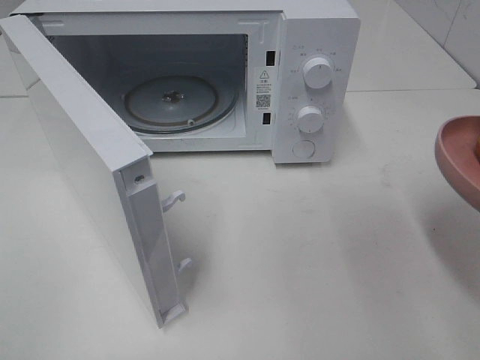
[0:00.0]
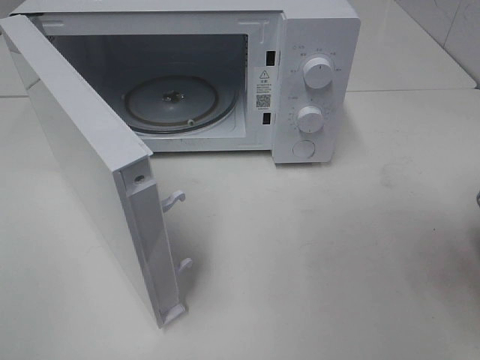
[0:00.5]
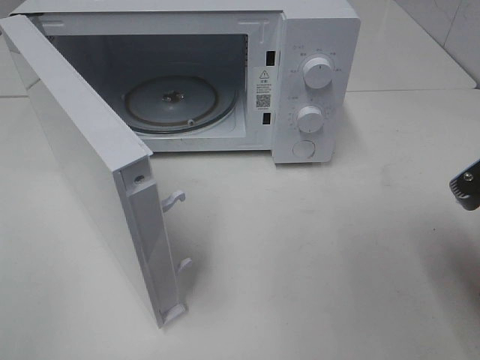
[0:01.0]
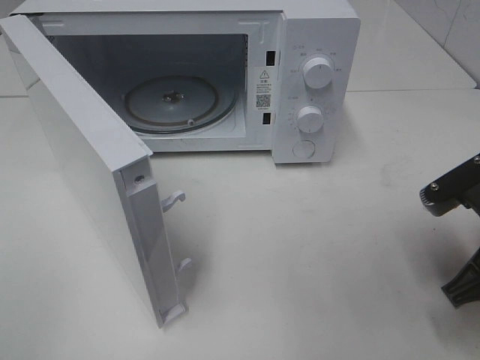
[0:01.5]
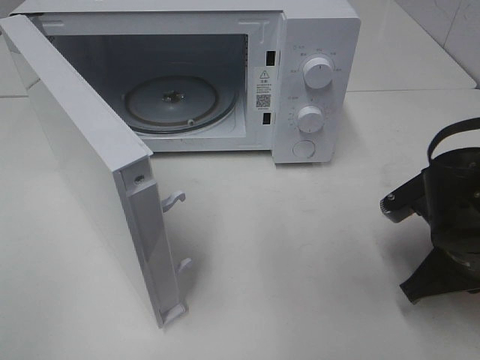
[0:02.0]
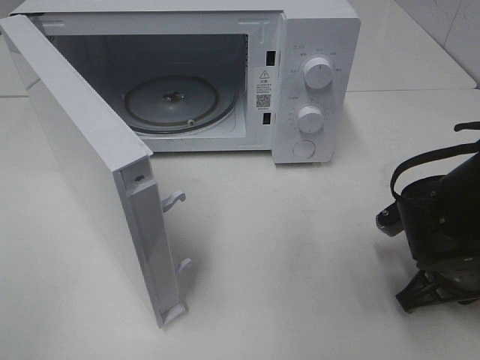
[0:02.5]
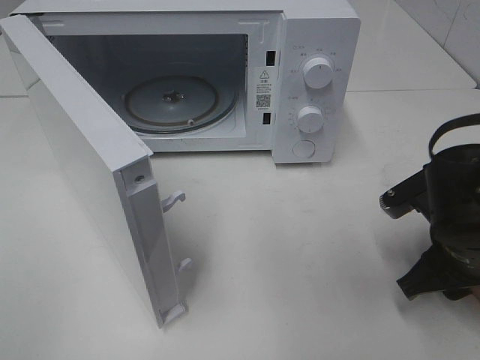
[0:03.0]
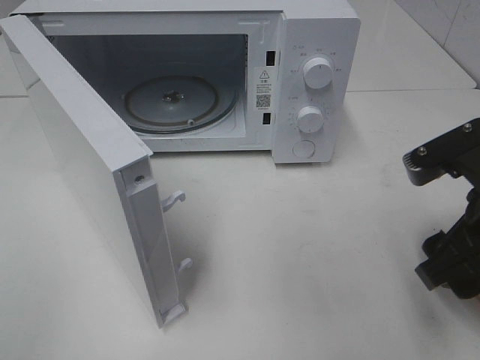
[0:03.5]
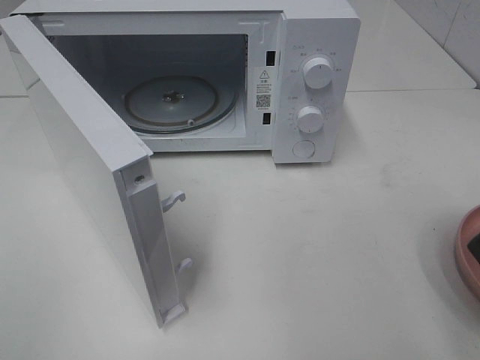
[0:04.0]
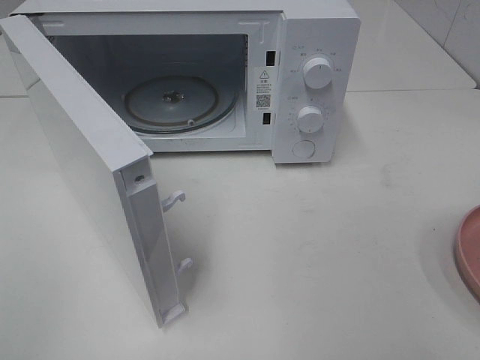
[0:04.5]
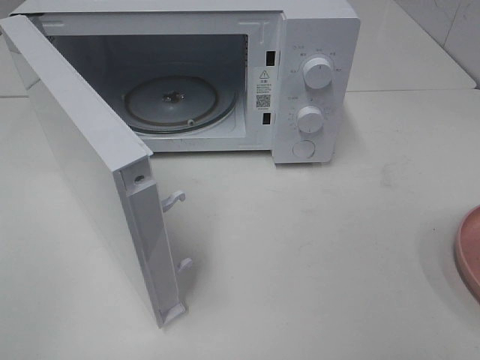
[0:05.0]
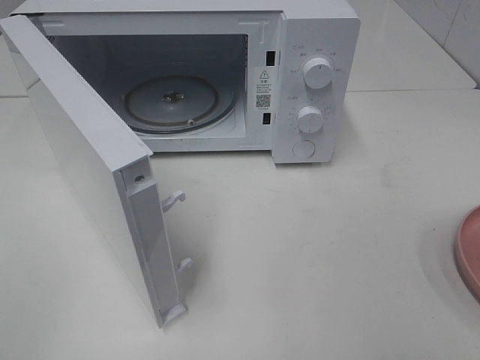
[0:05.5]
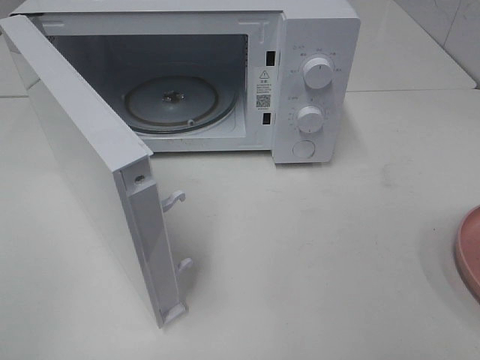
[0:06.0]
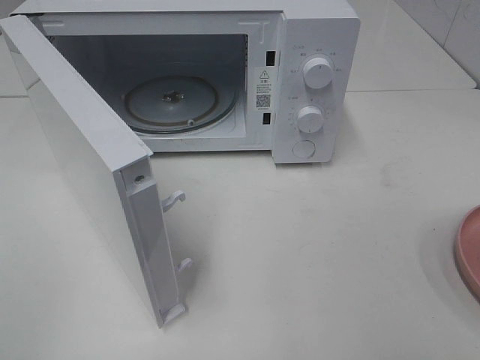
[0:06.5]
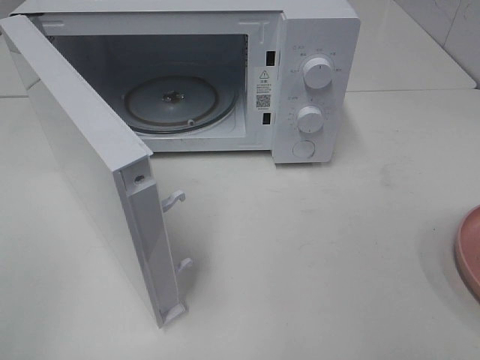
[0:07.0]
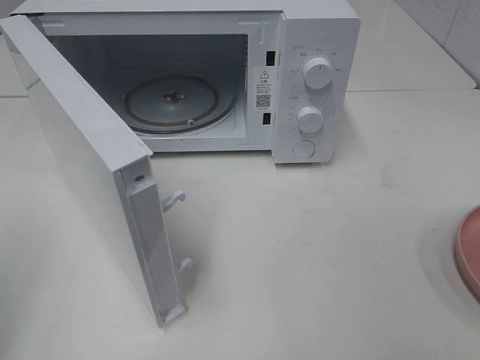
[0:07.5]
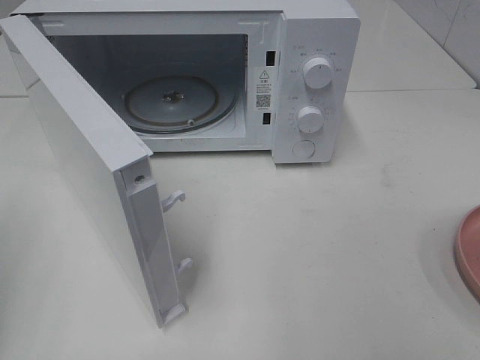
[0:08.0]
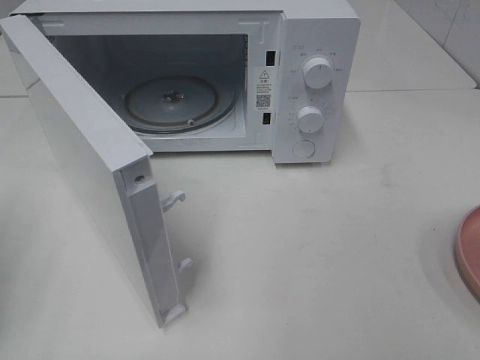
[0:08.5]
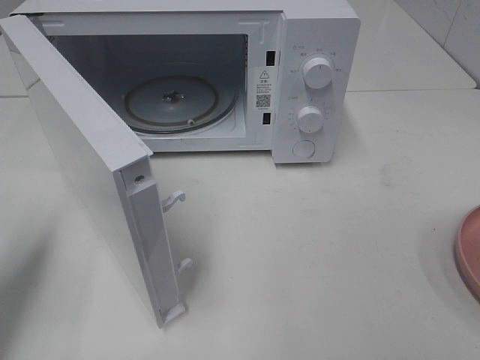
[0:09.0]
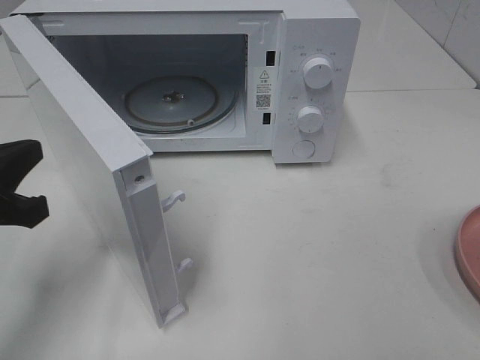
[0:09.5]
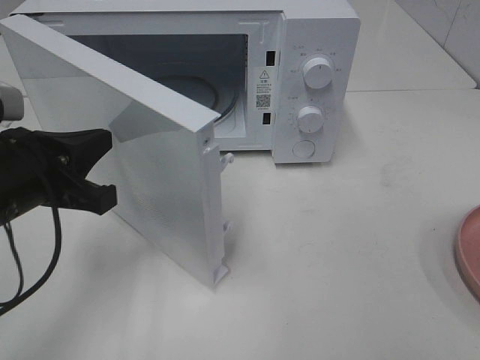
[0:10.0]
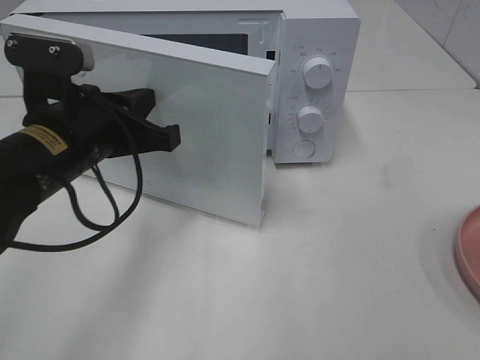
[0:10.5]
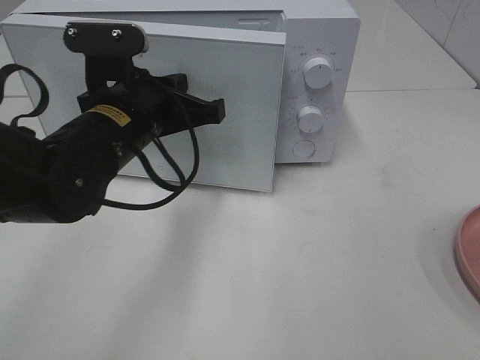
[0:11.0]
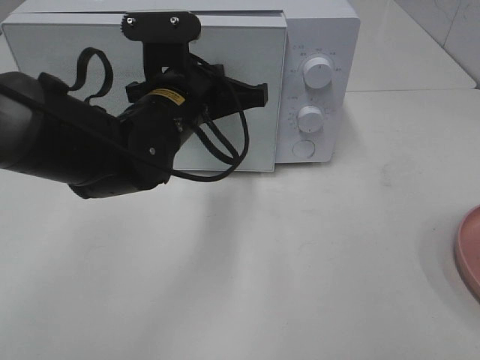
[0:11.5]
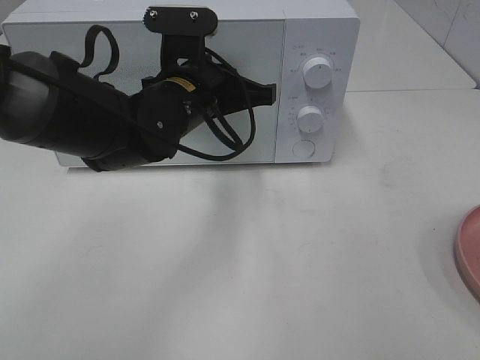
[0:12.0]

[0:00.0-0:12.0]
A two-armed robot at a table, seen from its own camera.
Task of the whole recording: Heat the burger.
Step, 0:00.0 to 0:02.5: Right hand: place the plate on the table.
0:00.0 to 0:02.0: The right gripper shifts approximately 15 cm downward and forward.
0:02.0 to 0:04.0: The right gripper goes approximately 20 cm upward and backward, and opens up.
0:04.0 to 0:06.0: The right gripper travels backward and to the right by approximately 15 cm.
0:08.0 to 0:10.0: The left gripper shifts roughly 20 cm to the right, forward and downward.
0:10.0 to 0:12.0: The left gripper moves to the right and forward, roughly 20 cm.

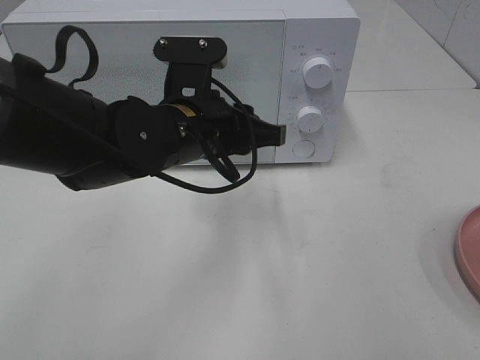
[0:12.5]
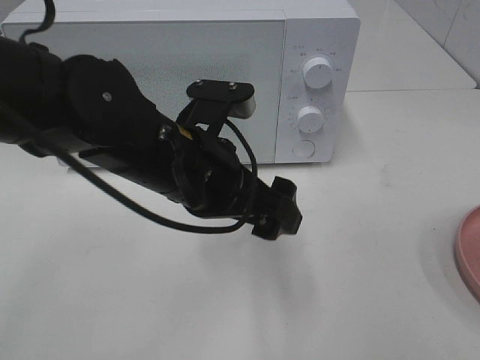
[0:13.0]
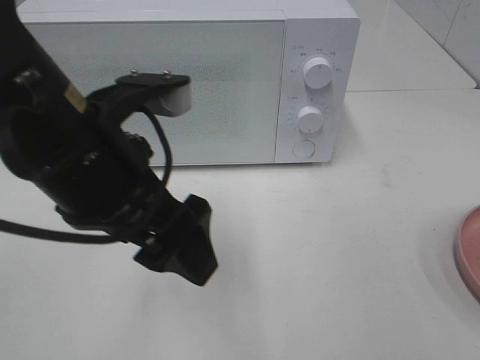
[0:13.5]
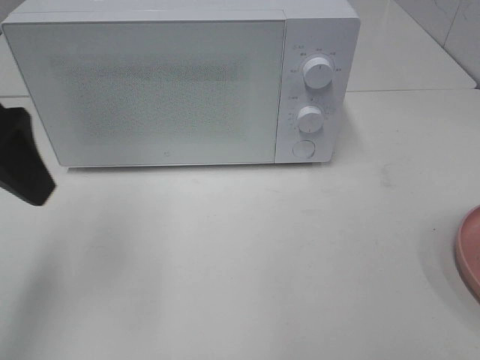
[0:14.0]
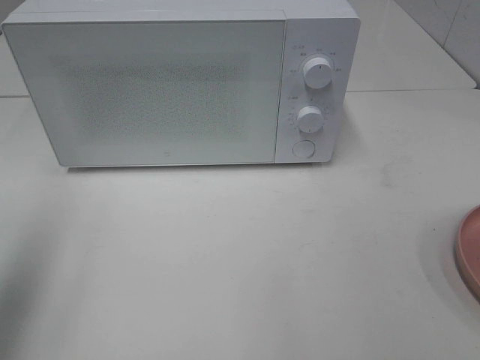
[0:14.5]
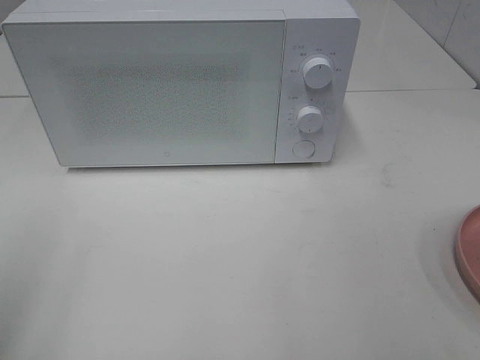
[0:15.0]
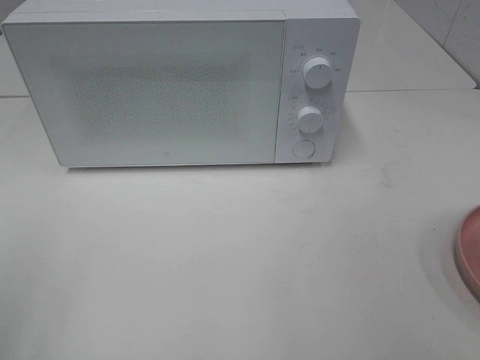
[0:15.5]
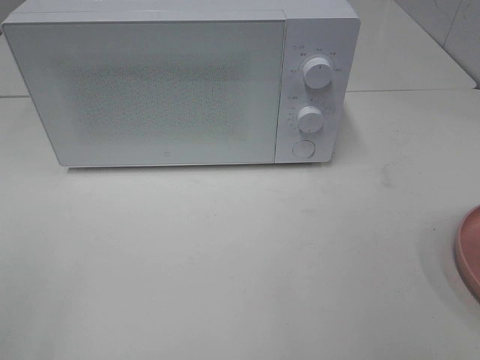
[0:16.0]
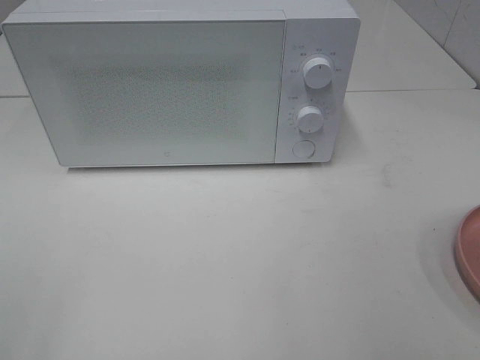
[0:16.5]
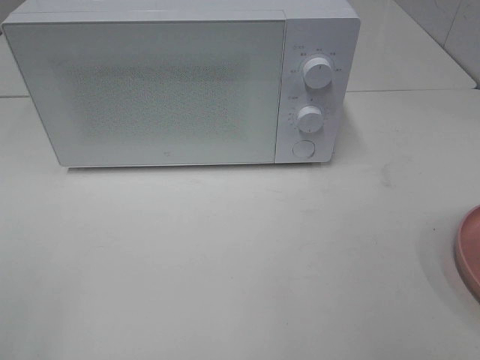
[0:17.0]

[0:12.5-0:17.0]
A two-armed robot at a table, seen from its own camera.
Task of the whole recording: Heat the burger.
0:12.5 to 0:14.5: The left gripper is displaced to the left, upward and backward by approximately 35 cm, and opens its fingers.
0:14.5 to 0:17.0: The left gripper moves backward, about 15 cm.
